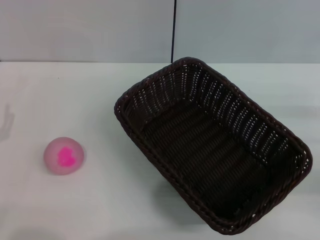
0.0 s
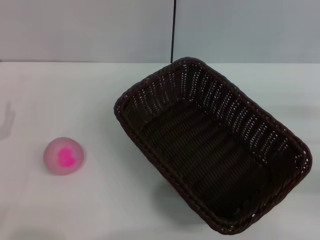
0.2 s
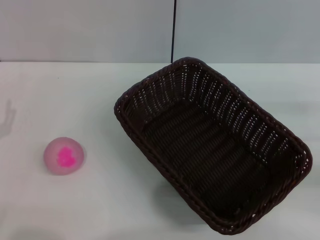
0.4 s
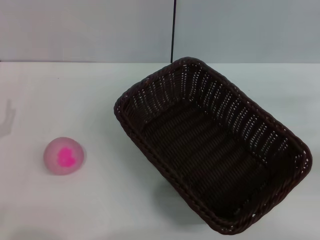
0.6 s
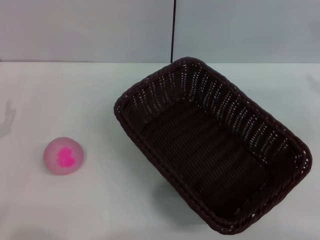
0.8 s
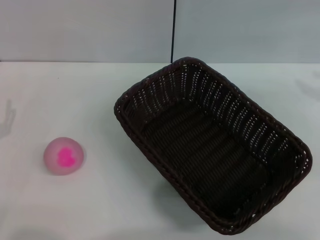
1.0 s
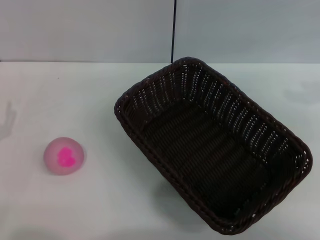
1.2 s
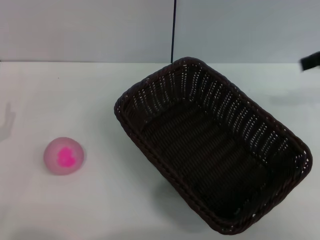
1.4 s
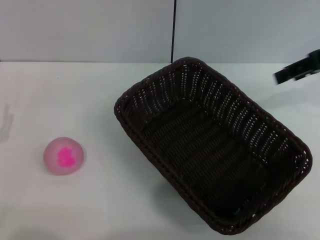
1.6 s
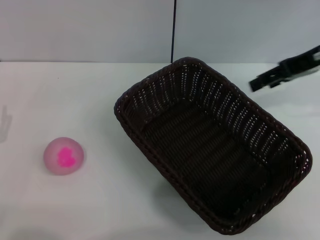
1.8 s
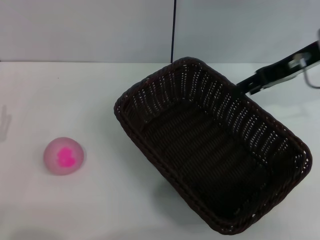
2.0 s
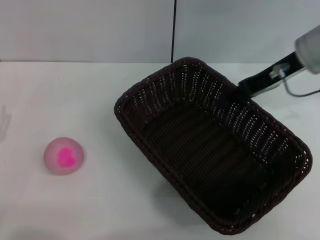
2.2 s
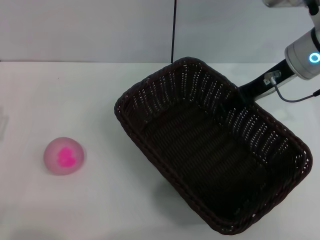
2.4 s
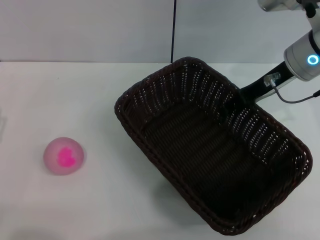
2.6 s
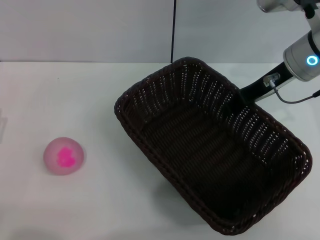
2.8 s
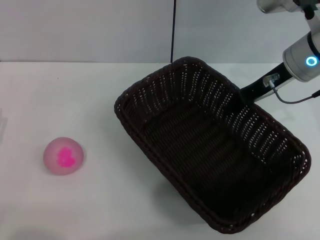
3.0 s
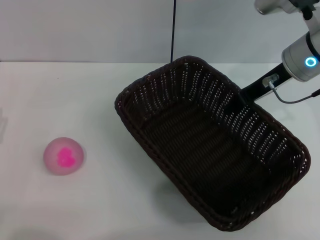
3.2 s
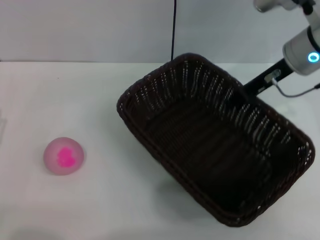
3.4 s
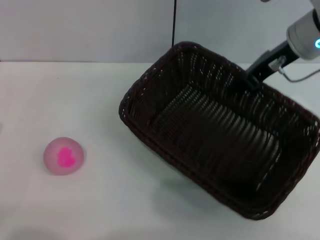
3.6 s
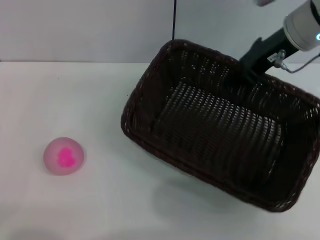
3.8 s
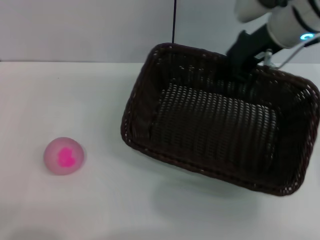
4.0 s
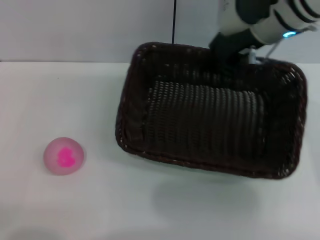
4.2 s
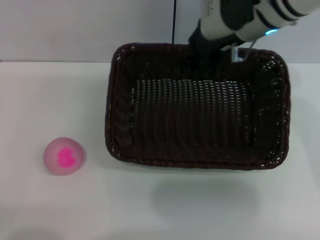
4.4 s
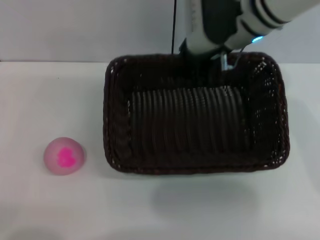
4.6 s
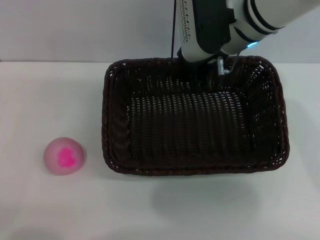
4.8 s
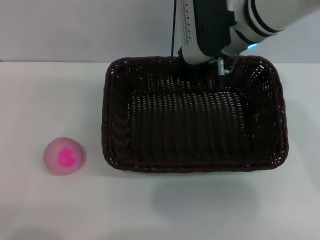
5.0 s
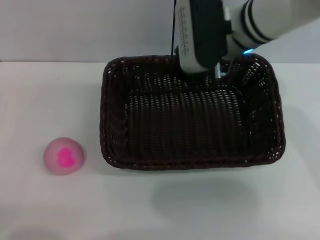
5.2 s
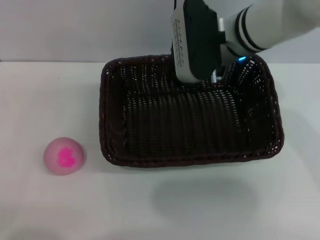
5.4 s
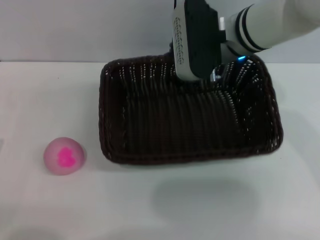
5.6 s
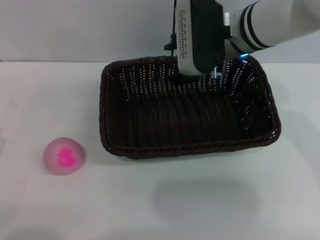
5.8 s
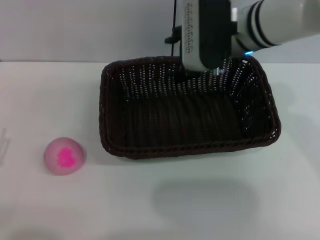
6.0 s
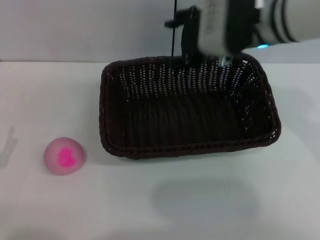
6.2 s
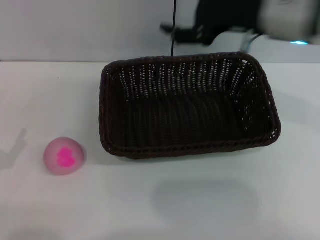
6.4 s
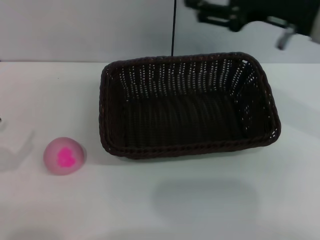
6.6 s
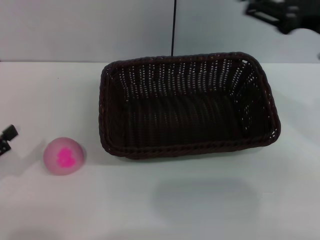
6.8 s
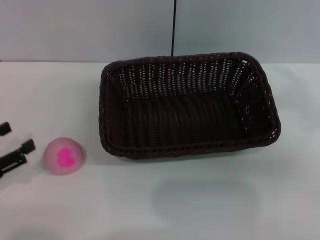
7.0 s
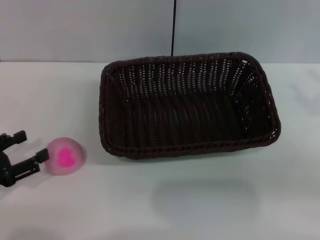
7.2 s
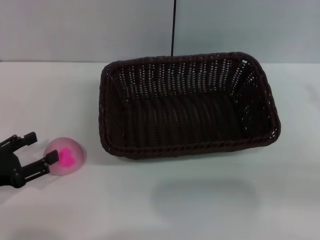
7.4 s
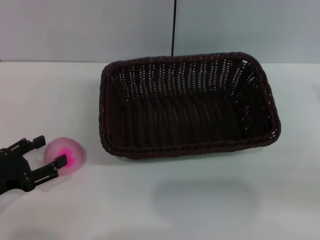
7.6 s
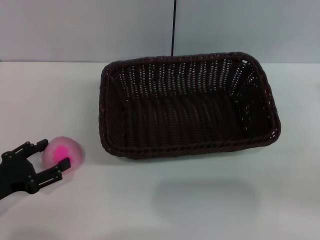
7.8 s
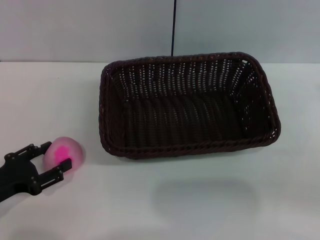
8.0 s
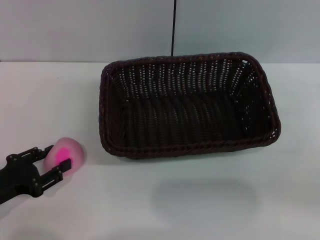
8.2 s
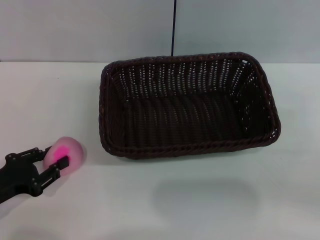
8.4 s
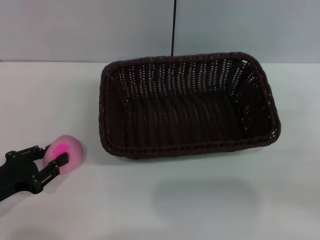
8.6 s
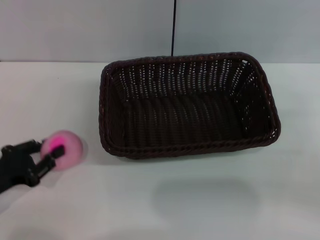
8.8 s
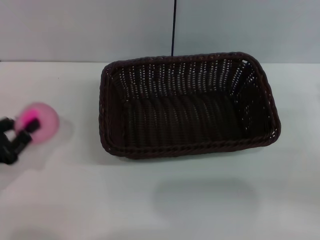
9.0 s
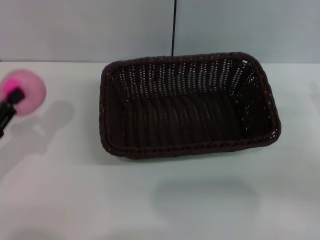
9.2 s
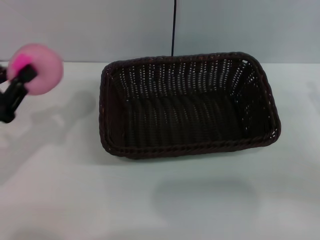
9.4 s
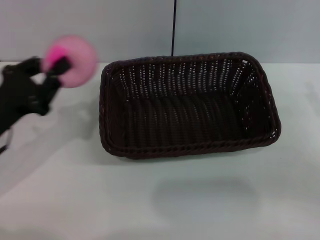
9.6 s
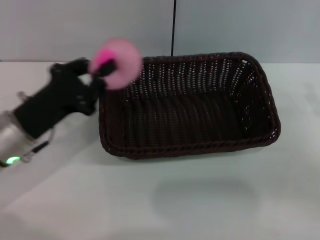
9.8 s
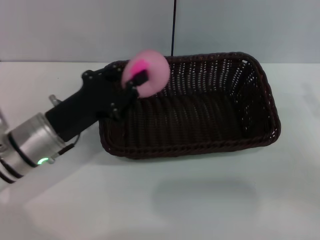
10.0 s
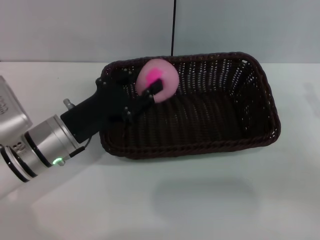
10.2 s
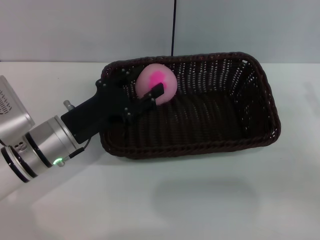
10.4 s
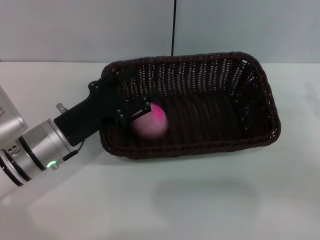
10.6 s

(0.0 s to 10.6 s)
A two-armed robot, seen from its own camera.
Step, 0.0 s - 3.6 s: Pick up the dark basket with the right gripper.
Step, 3.8 s - 6.2 s: Place the dark basket in the center of view with the right gripper.
Step, 6.4 s - 9.0 s: Pick up the peach with the left gripper.
0.0 s - 1.6 s: The right gripper is displaced upward, forward and to the left by some 25 cm.
1.6 s - 3.0 s: The right gripper heads to the left and downward, covering some 10 cm, and closes its fingers.
3.0 s - 4.6 s: The left gripper goes approximately 5 cm backward; the right gripper travels to the left by roughly 10 cm, and closes its fingers.
4.6 s - 6.0 s: The right gripper opens its fingers.
6.0 s - 7.6 s: The left gripper shifts by some 5 cm. The right gripper is displaced to the right and backward by about 30 cm.
7.6 s - 9.0 s: The left gripper closes its fingers.
9.0 s - 10.6 s: The left gripper goes approximately 15 cm to the right and forward, and opens its fingers.

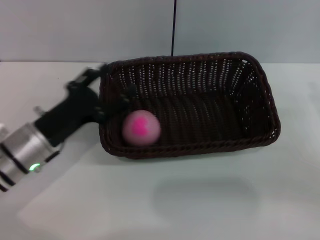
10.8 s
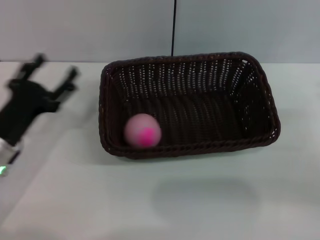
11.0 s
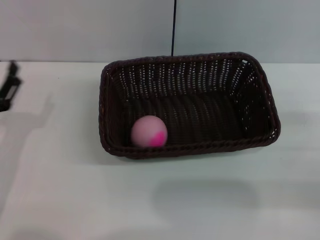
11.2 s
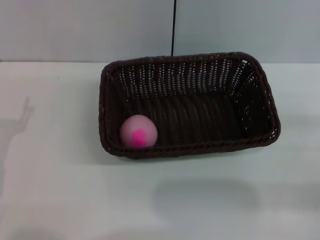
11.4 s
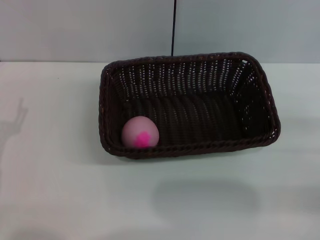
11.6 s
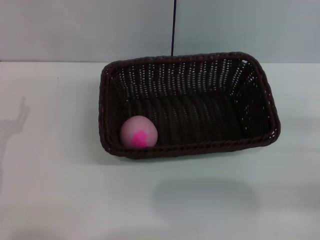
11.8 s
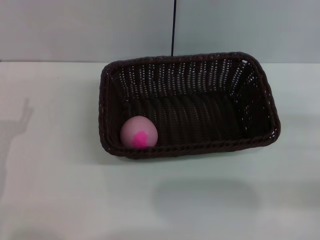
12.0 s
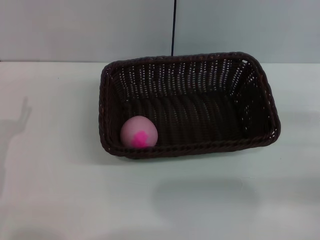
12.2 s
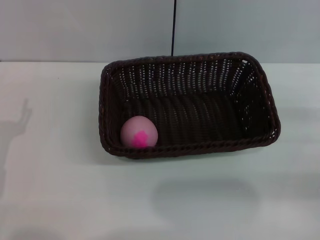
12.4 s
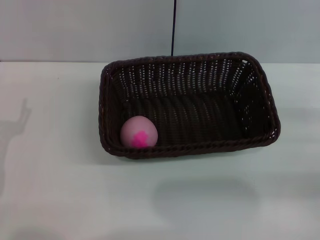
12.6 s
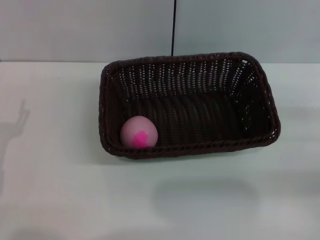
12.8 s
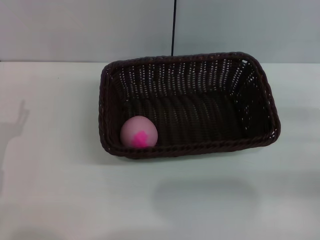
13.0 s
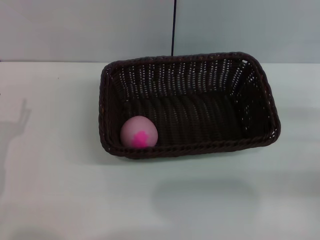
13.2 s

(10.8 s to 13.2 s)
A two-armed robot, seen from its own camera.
10.8 s - 12.0 s: The left gripper travels to the left and backward by about 10 cm.

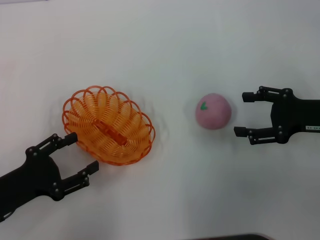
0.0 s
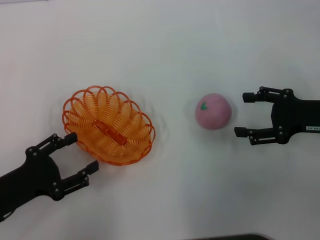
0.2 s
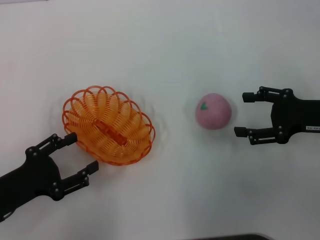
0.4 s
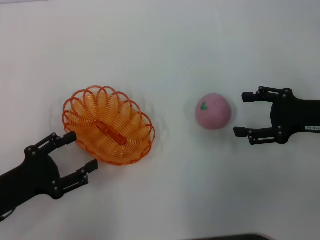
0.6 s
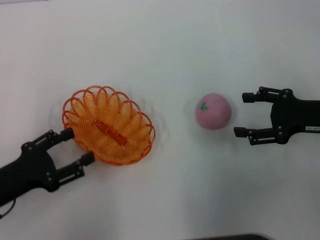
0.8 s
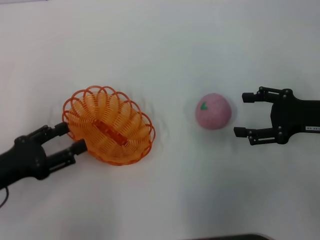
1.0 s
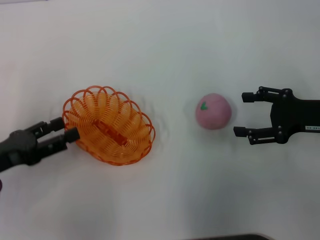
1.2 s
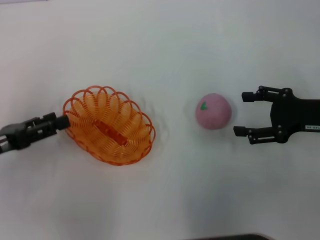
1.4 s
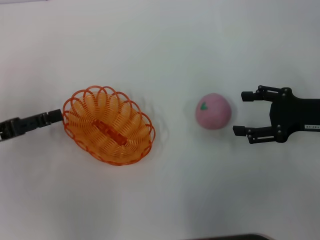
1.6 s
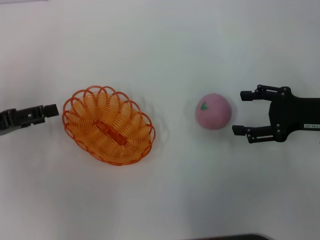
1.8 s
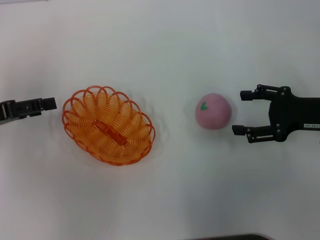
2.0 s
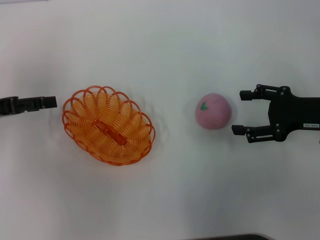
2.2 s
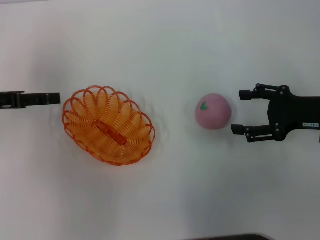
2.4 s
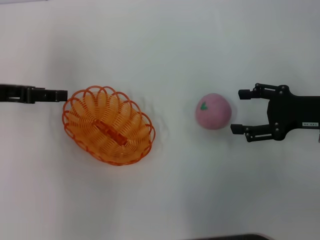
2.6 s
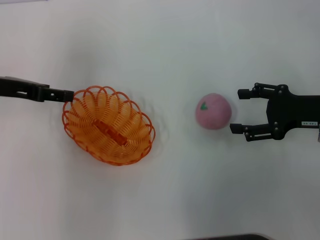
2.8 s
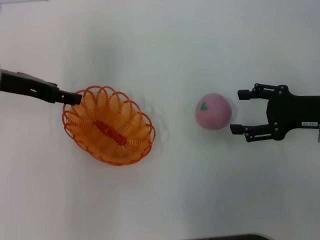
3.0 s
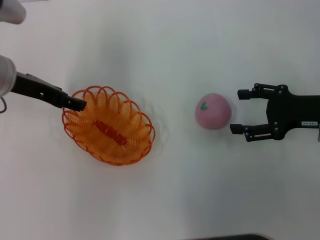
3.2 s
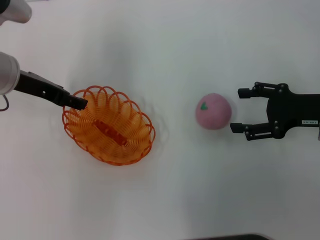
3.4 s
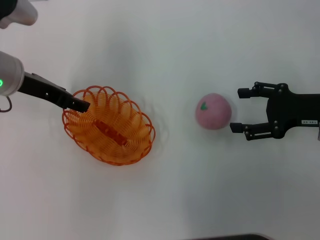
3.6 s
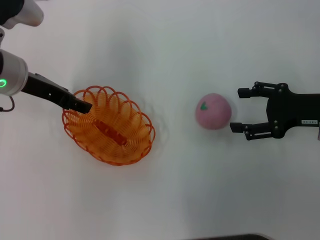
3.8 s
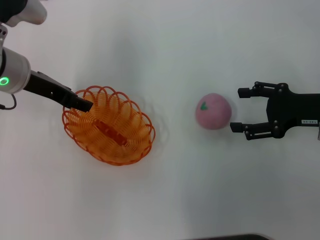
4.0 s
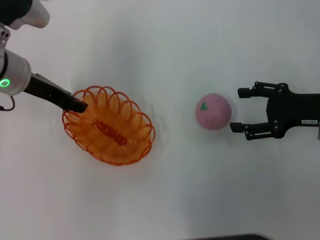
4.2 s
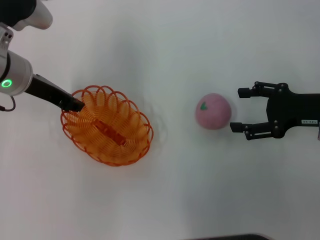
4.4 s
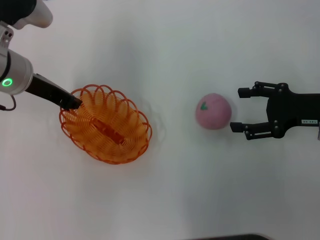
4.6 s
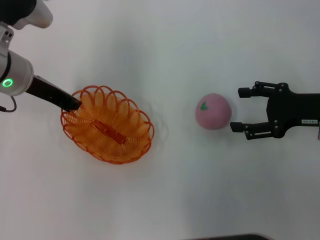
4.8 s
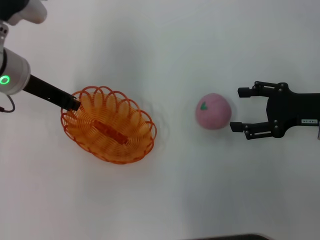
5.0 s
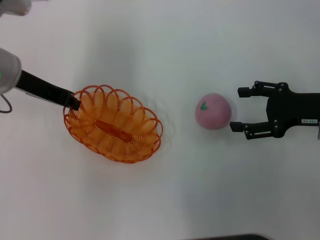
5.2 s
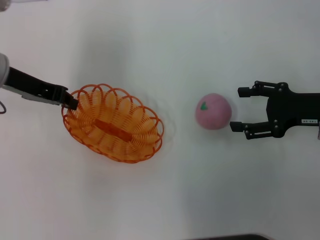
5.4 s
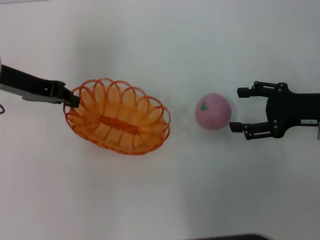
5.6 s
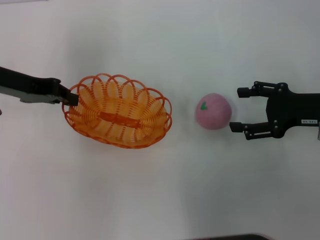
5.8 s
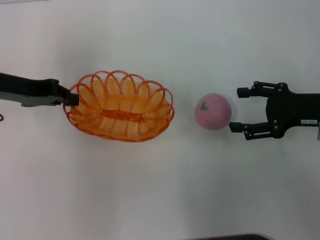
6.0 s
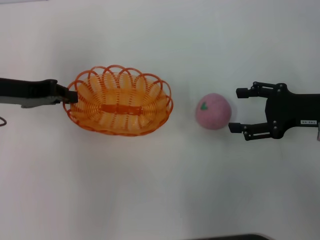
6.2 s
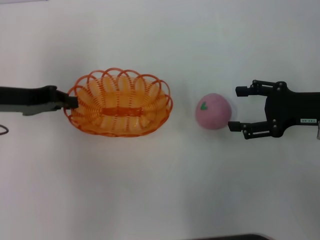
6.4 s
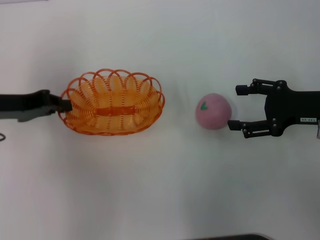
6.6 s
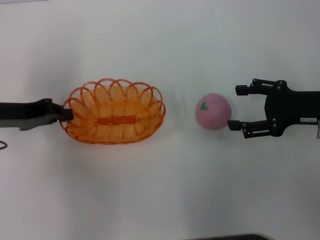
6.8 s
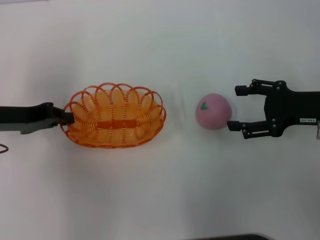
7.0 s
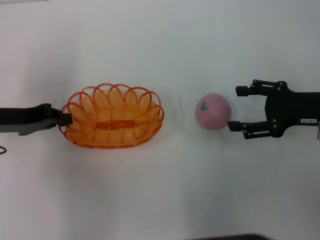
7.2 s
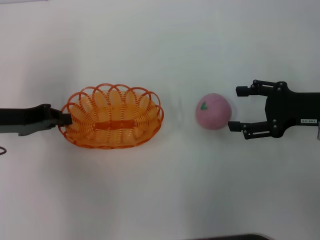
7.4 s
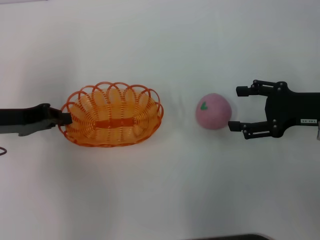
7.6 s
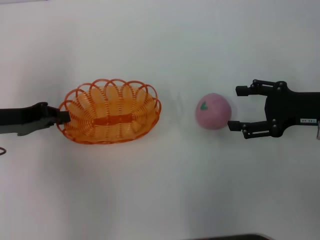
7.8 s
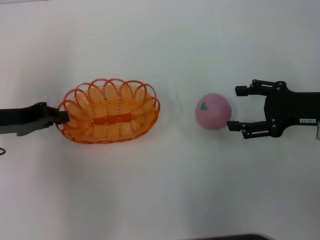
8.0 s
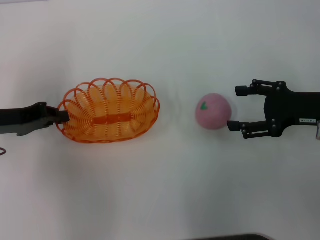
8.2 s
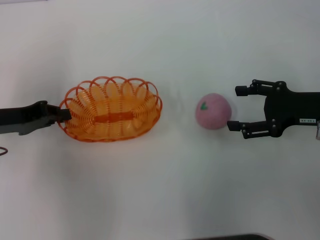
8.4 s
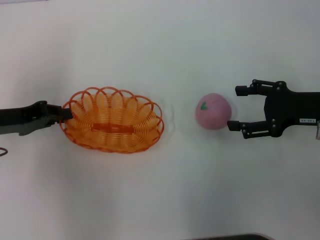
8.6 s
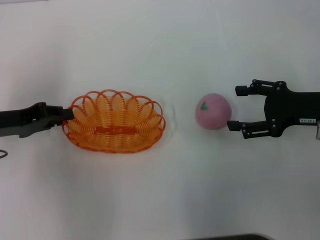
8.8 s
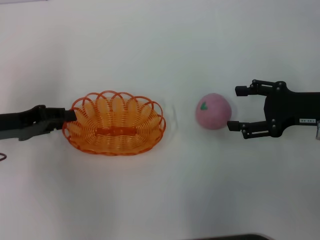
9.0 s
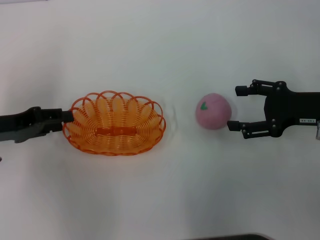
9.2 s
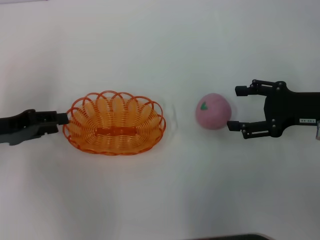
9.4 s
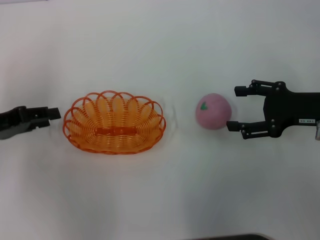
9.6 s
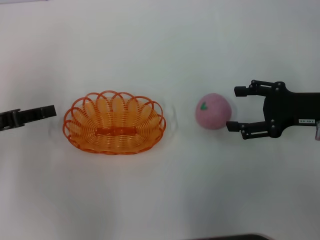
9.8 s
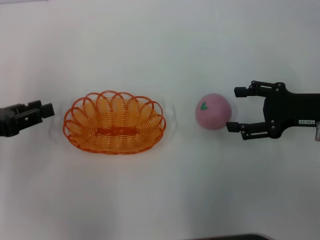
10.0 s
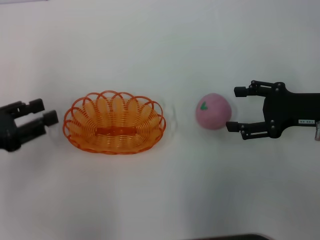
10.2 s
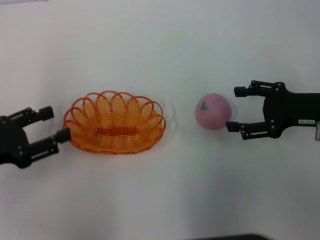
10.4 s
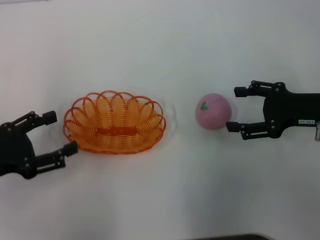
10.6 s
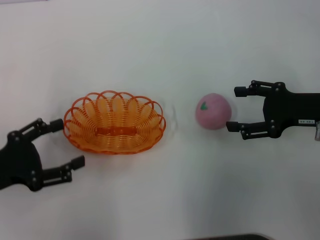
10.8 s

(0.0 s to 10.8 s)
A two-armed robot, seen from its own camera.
Step, 0.0 s - 6.4 s: Pick up the basket with the left gripper.
0.0 s - 1.6 s: The left gripper goes about 10 cm forward and upward.
1.6 s - 3.0 s: The left gripper shifts some 15 cm forward, to the right and upward.
3.0 s - 4.6 s: The left gripper closes up.
4.6 s - 6.2 s: The left gripper moves to the left, some 5 cm.
6.2 s - 7.8 s: The left gripper moves some 5 cm.
7.8 s - 9.2 s: There are only small adjustments of the grippers.
9.2 s - 10.8 s: The left gripper is displaced backward by roughly 10 cm, and opens up.
